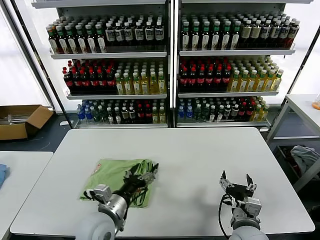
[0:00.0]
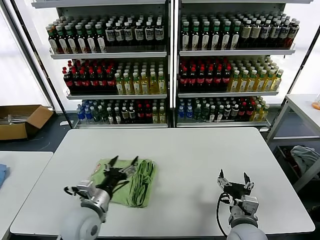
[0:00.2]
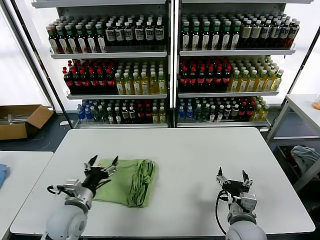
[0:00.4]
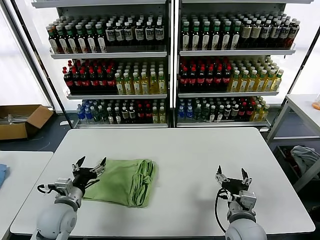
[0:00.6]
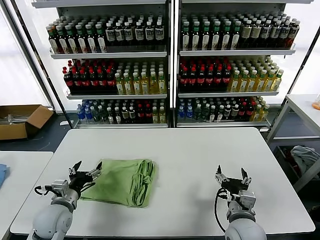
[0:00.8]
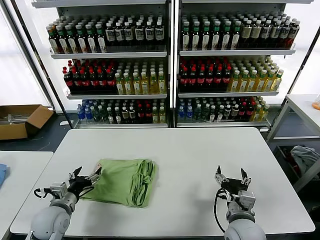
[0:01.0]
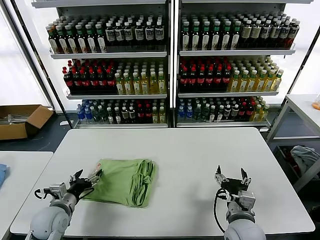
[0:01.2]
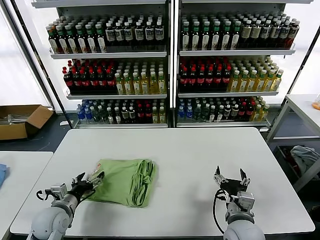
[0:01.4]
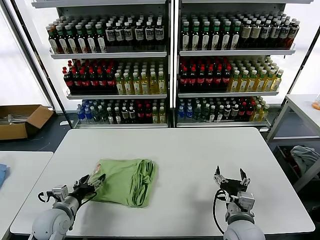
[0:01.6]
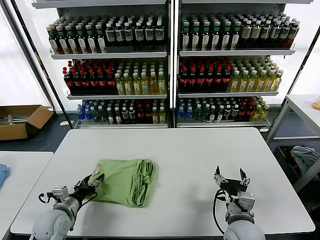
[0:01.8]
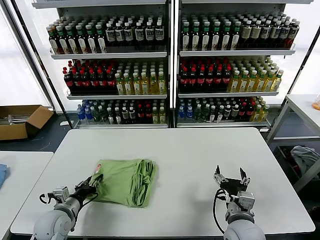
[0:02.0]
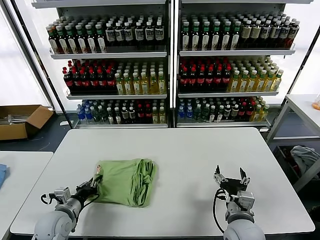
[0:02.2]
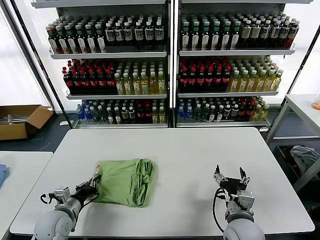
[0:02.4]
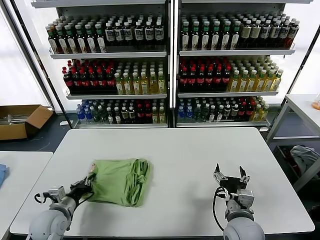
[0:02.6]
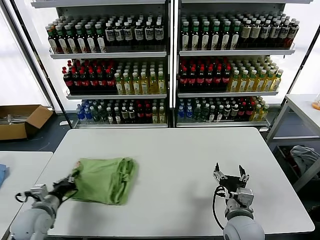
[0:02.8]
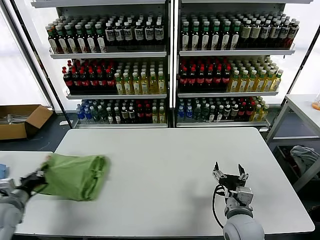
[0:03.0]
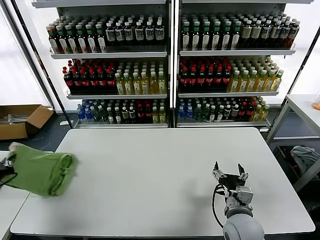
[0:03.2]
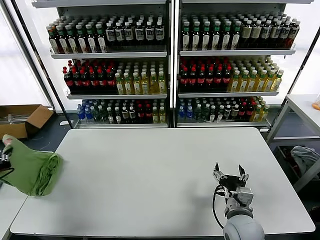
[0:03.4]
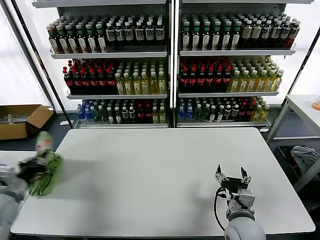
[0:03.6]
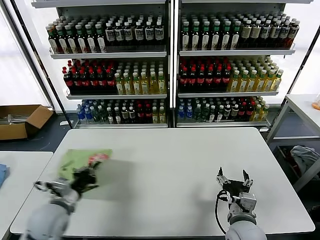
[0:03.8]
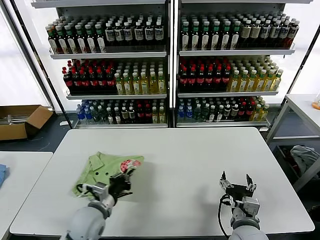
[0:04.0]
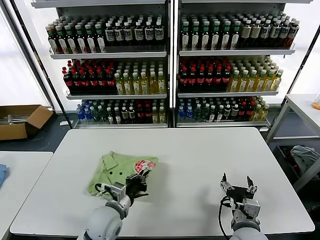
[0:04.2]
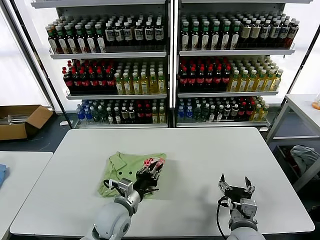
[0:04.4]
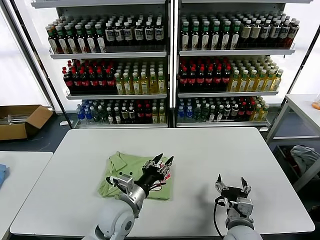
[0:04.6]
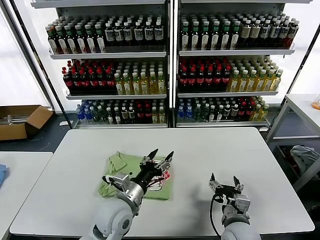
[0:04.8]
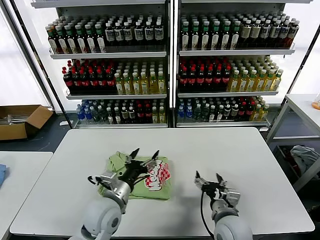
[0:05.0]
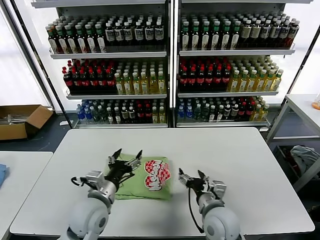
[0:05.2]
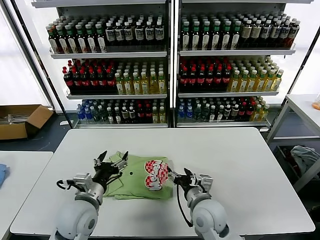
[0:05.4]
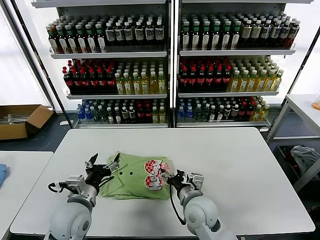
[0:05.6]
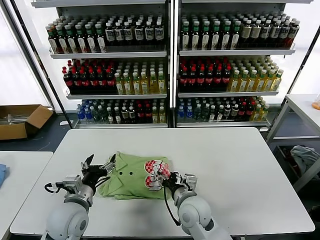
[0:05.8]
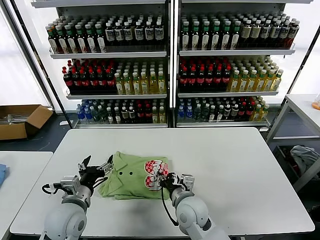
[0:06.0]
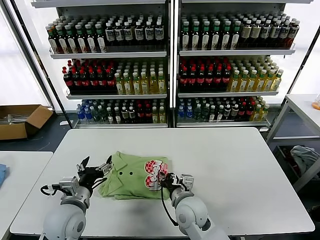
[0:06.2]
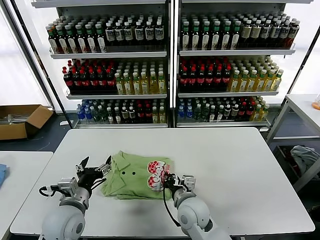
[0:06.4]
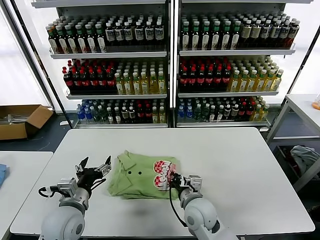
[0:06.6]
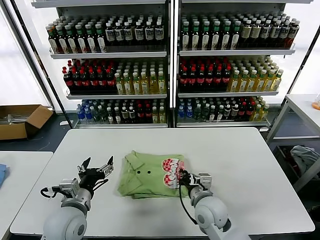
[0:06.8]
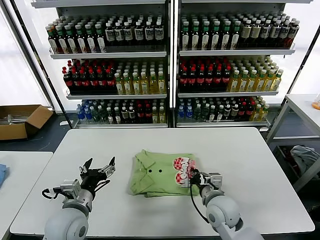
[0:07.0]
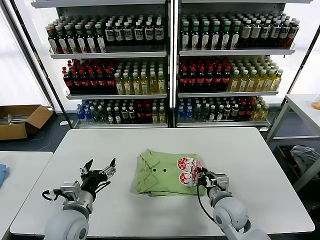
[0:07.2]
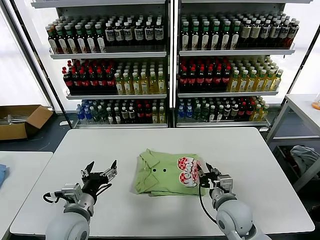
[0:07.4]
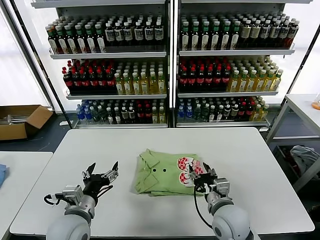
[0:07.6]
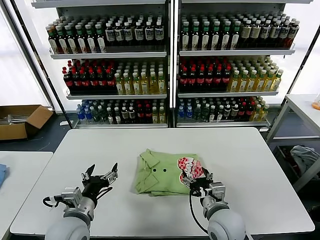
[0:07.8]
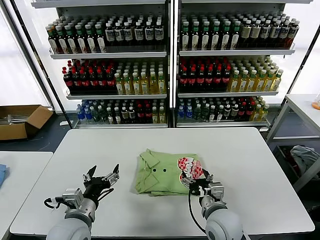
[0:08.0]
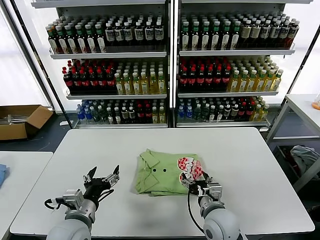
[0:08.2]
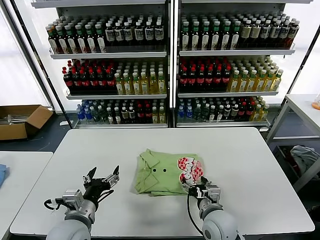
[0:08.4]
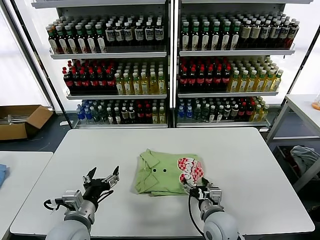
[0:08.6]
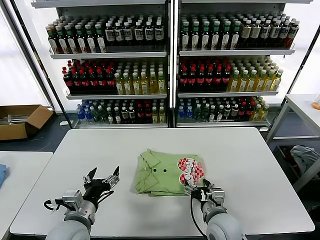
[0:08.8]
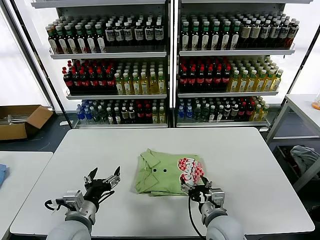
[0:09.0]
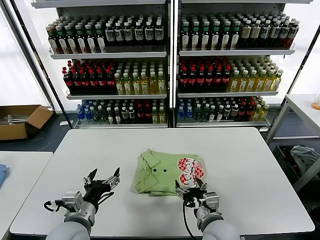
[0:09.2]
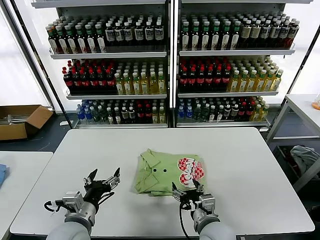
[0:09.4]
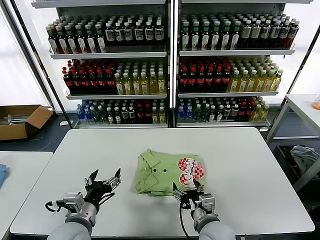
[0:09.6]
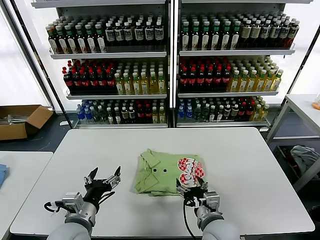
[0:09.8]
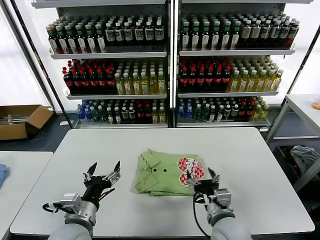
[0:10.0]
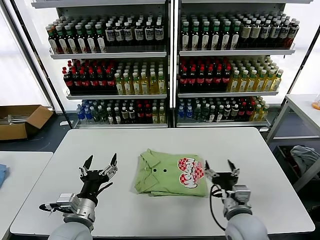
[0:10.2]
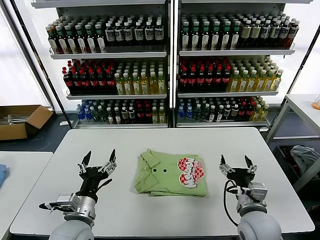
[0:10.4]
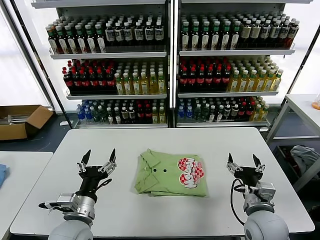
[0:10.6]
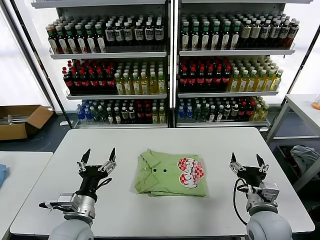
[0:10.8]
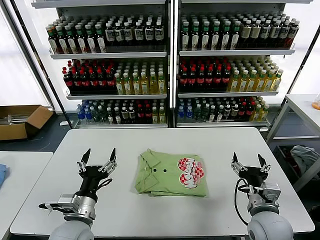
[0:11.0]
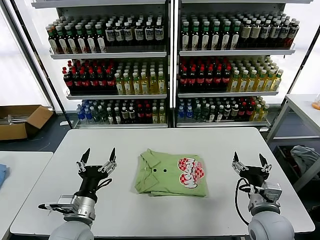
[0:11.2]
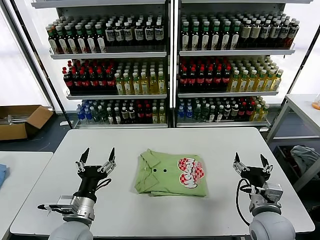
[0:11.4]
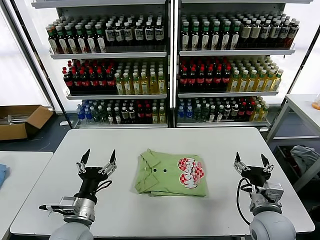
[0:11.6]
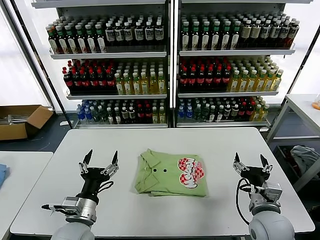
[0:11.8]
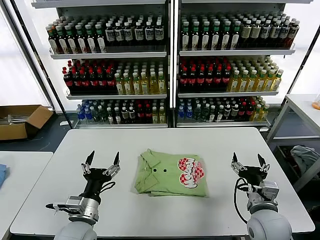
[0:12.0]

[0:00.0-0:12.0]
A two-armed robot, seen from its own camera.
Task of the whole recording: fold and organize the clothes.
Step, 0:00.0 to 0:04.4: Flip the folded clothes over with left gripper.
Step, 0:04.8 to 0:09.0: Drag the clothes to the center of the table.
0:00.0 to 0:01.6: The left gripper shifts approximately 20 cm to the left.
0:01.6 to 0:03.0: The left gripper heads to the left, covering roughly 10 cm, and closes.
0:03.0 to 0:04.4: The left gripper travels to the right by approximately 30 cm.
0:04.4 to 0:06.0: The left gripper moves to the left, approximately 10 cm, and opens. Meanwhile the right gripper goes roughly 15 cm to the left and forward, and closes.
0:06.0 to 0:07.6: The right gripper moves to the right, approximately 10 cm, and closes, then reopens.
0:07.6 to 0:09.0: The right gripper opens.
0:09.0 to 0:10.4: The right gripper heads to the right, covering roughly 5 cm.
0:10.4 to 0:12.0: The grippers stay close to where they were, moving slightly.

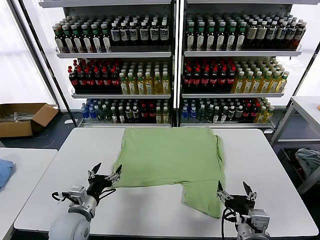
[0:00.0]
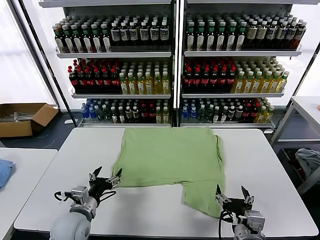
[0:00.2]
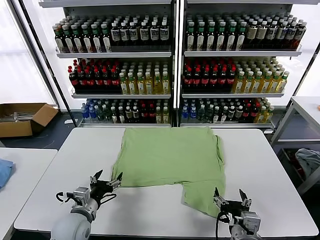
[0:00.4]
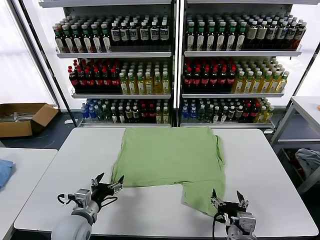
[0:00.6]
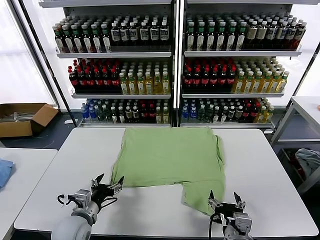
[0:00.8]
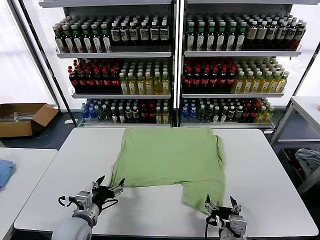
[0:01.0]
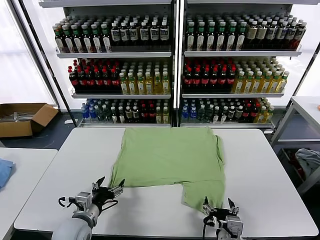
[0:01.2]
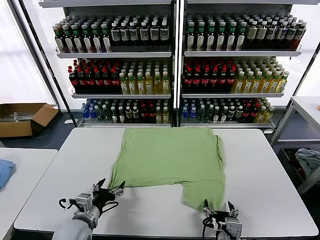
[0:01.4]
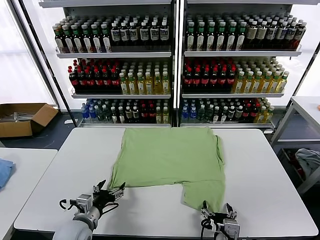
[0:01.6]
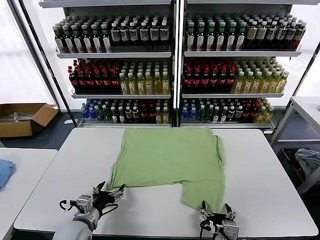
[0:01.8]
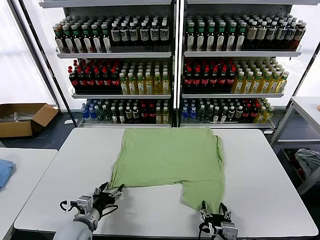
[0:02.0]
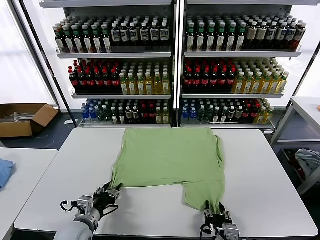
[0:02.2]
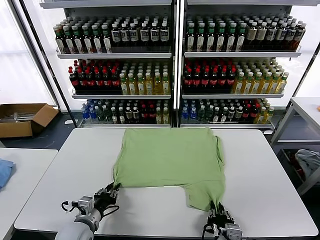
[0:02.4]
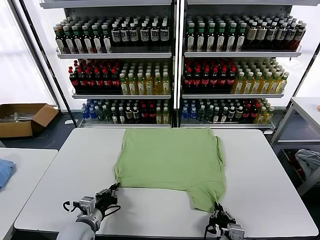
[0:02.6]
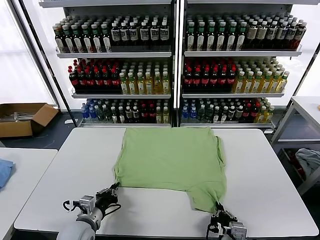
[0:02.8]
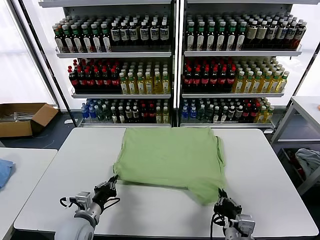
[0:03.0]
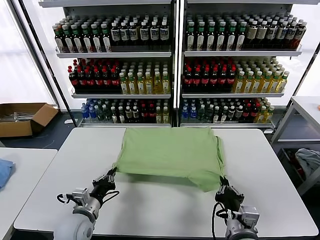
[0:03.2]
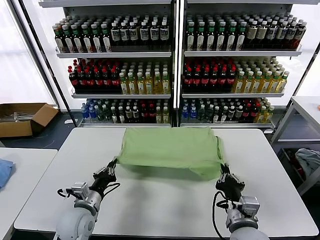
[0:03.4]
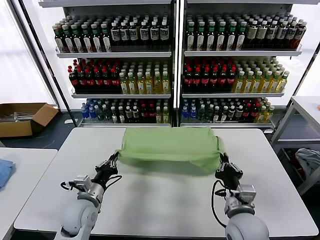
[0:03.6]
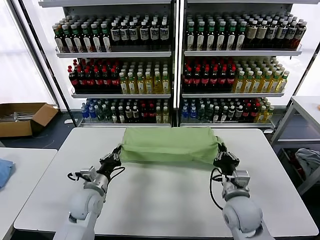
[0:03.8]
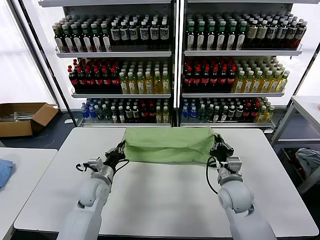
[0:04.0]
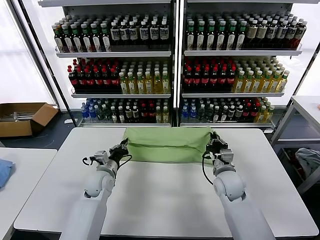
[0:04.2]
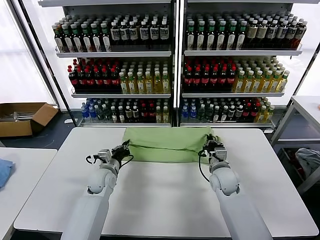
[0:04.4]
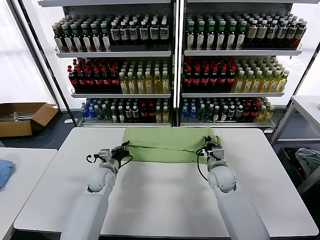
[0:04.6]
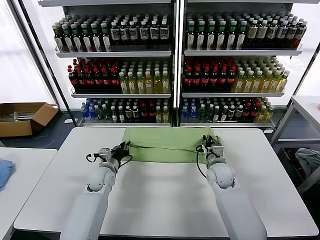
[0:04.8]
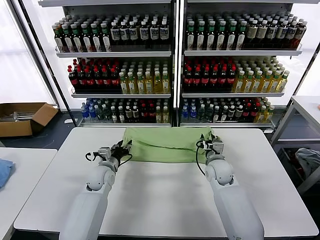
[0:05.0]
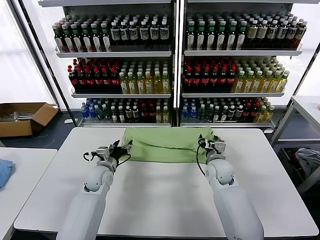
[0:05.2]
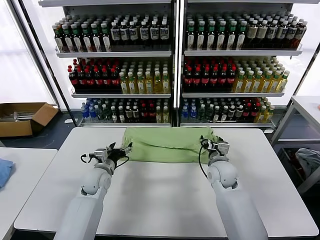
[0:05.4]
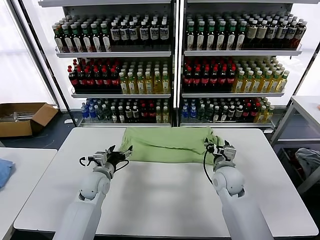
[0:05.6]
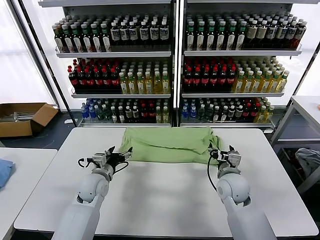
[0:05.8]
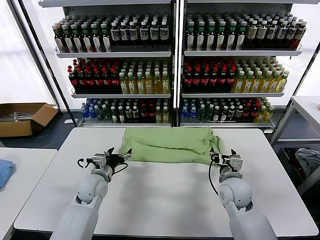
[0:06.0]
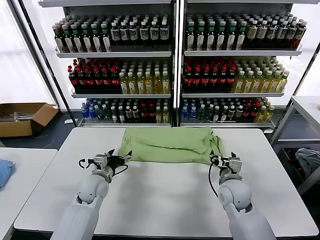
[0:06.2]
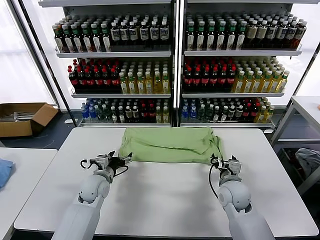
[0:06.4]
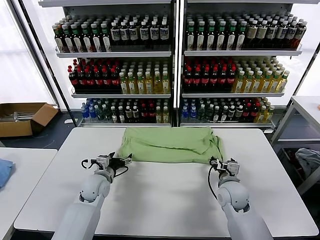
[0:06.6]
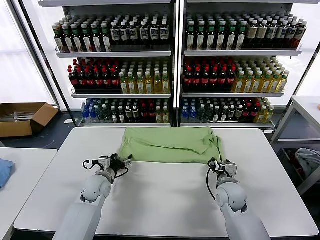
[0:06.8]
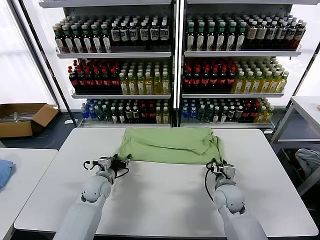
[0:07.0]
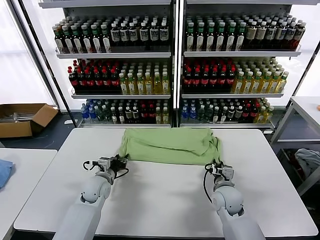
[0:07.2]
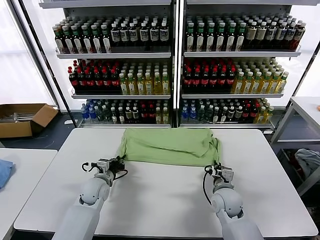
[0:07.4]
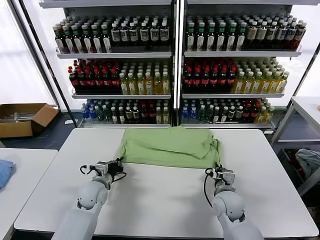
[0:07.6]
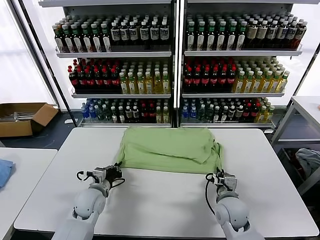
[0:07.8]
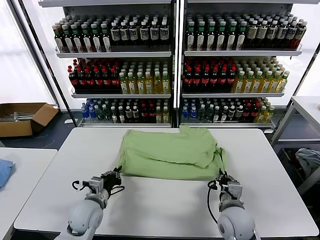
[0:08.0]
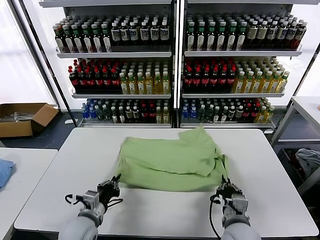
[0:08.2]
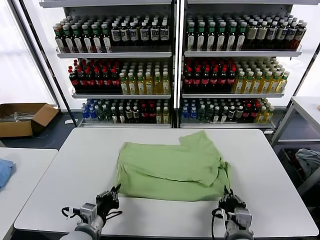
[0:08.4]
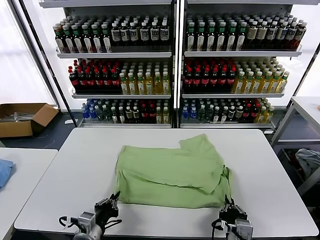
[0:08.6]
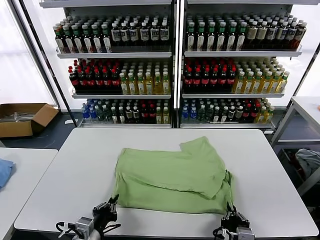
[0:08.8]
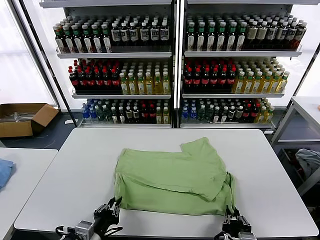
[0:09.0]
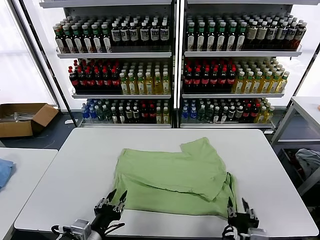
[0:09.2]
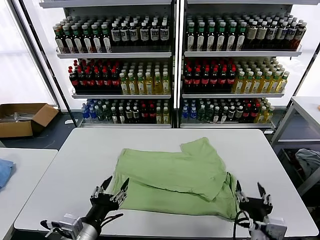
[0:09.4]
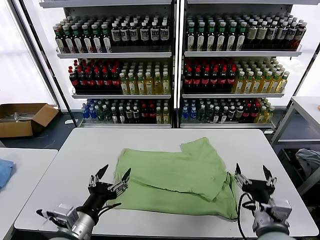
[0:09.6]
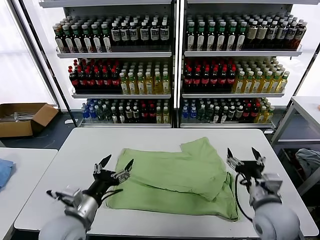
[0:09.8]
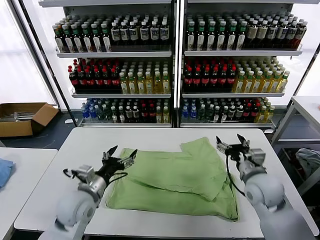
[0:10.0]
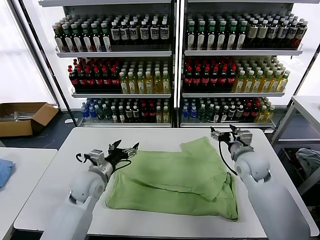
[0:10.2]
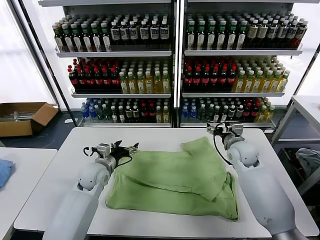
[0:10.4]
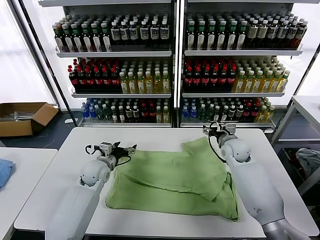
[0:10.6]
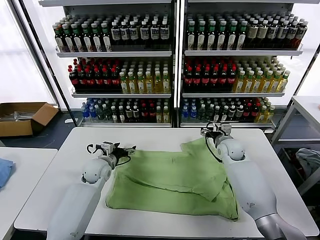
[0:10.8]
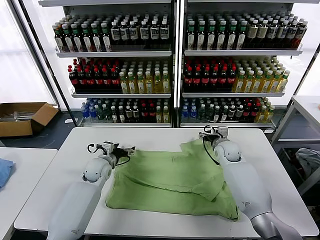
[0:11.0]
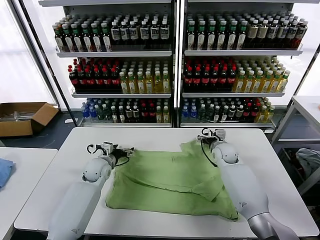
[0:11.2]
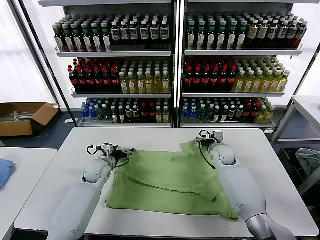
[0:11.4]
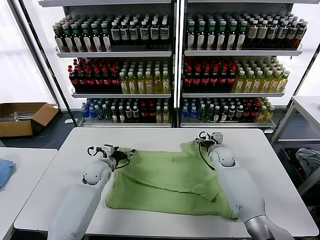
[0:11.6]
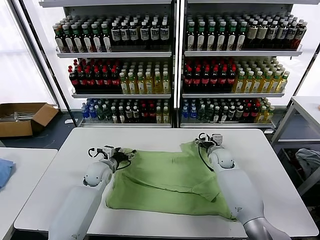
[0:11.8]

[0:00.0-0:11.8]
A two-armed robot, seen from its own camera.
Task of the whole recording: fold and organize the clothes.
Step, 0:00.0 to 0:02.6: use both grippers simultaneously to clamp the lower edge of the clothing fabric.
Step, 0:02.8 to 0:05.2: use both grippers to drag the lower edge of the fabric forward and fold it over the upper edge.
Step, 0:05.4 to 0:09.2: Drag the clothes downward with both gripper.
0:01.4 to 0:03.0: The right gripper moves upward, roughly 5 cm, and closes up; the left gripper closes up.
0:03.0 to 0:04.4: Both grippers move forward, some 20 cm.
0:04.4 to 0:06.0: The left gripper ends up approximately 5 cm from where it was, and opens its fingers, while the right gripper is displaced backward by approximately 5 cm, and opens its fingers.
0:06.0 to 0:07.4: The left gripper closes. Meanwhile the right gripper goes some 5 cm downward, and closes its fingers.
0:07.4 to 0:08.8: The grippers both shift backward by about 25 cm.
0:08.8 to 0:10.4: The grippers both shift forward by roughly 30 cm. The left gripper opens; the right gripper opens.
0:10.4 to 0:11.8: The left gripper moves approximately 5 cm. The right gripper travels downward by about 10 cm.
